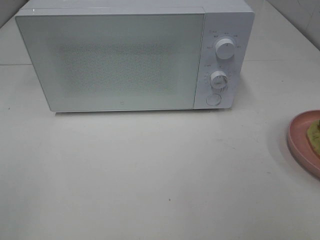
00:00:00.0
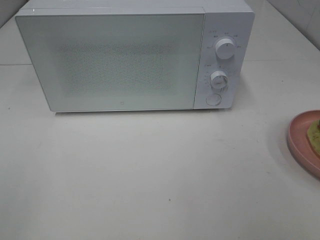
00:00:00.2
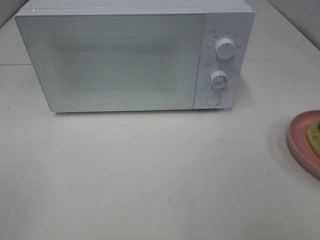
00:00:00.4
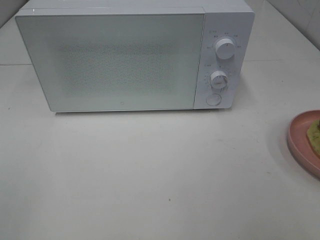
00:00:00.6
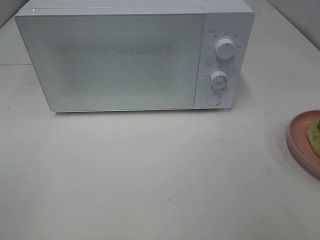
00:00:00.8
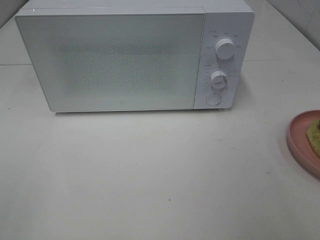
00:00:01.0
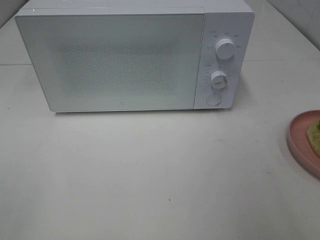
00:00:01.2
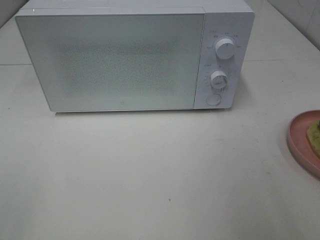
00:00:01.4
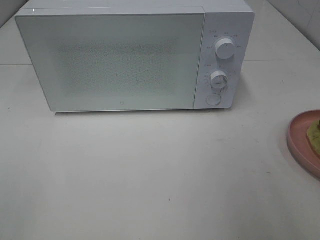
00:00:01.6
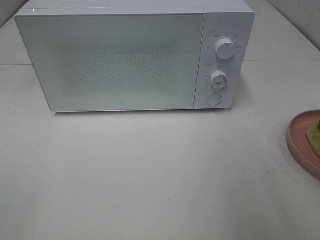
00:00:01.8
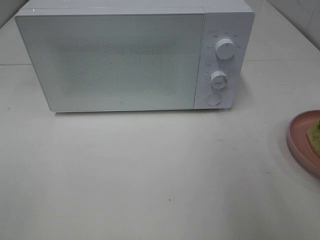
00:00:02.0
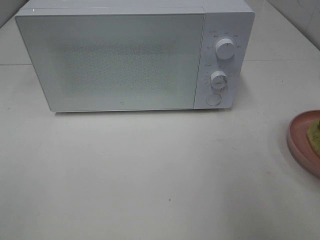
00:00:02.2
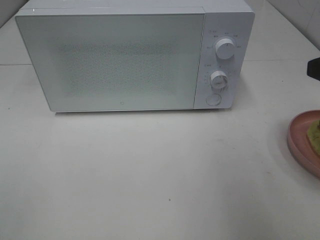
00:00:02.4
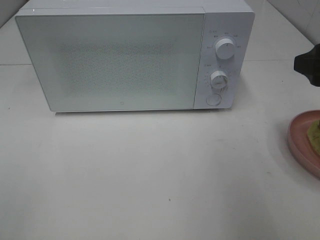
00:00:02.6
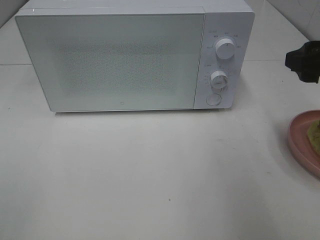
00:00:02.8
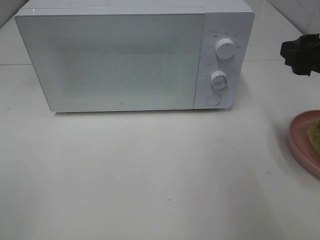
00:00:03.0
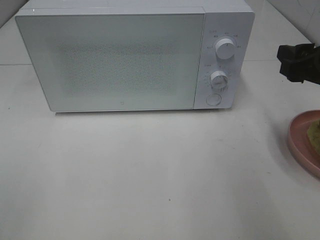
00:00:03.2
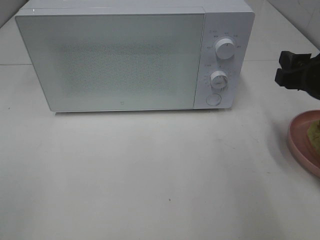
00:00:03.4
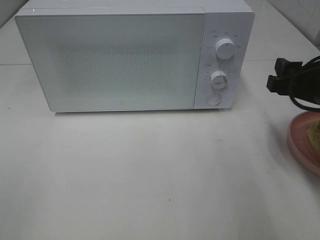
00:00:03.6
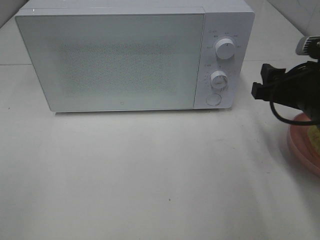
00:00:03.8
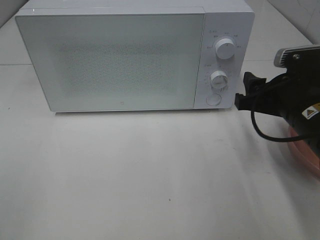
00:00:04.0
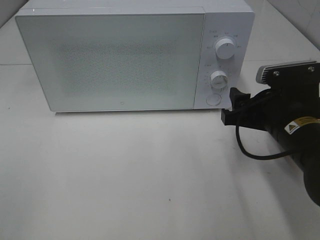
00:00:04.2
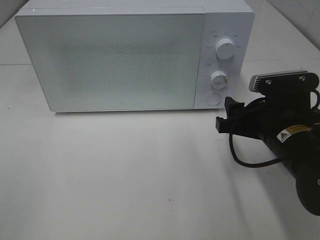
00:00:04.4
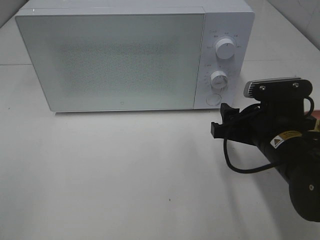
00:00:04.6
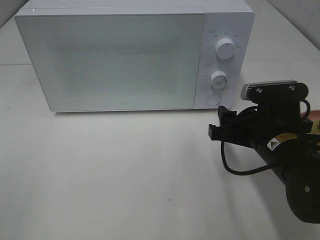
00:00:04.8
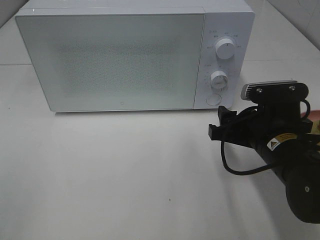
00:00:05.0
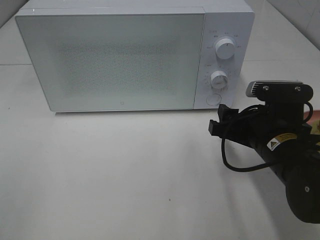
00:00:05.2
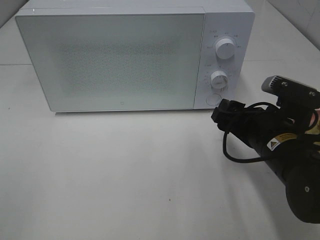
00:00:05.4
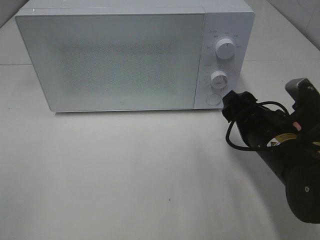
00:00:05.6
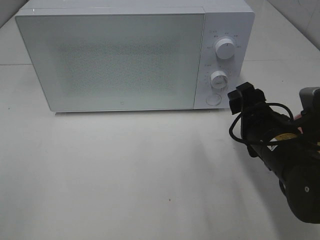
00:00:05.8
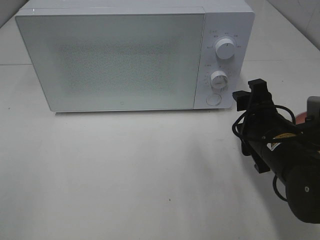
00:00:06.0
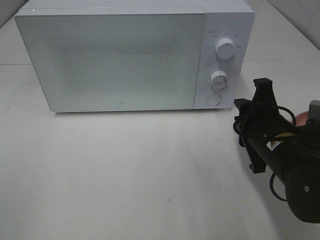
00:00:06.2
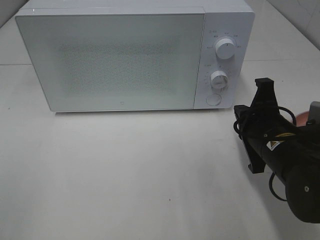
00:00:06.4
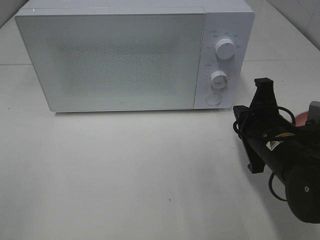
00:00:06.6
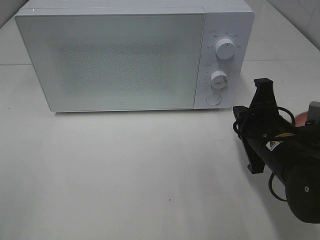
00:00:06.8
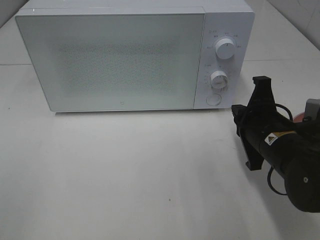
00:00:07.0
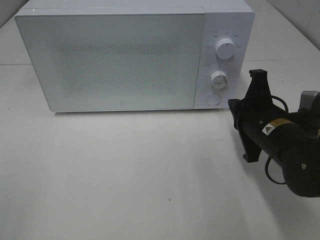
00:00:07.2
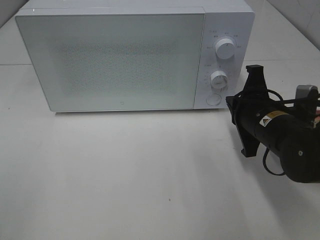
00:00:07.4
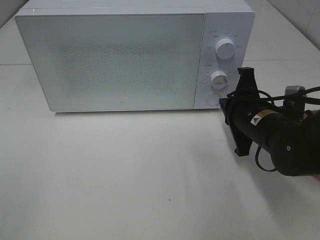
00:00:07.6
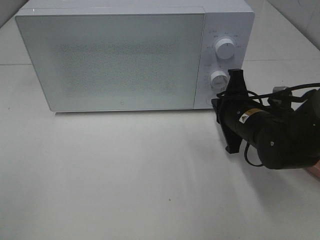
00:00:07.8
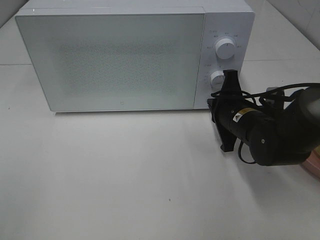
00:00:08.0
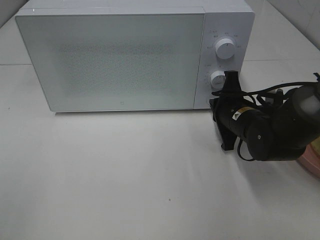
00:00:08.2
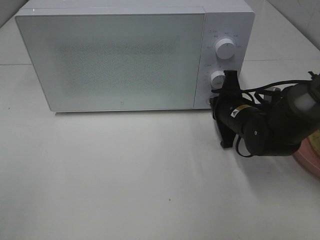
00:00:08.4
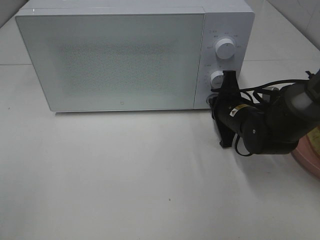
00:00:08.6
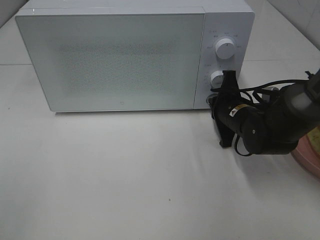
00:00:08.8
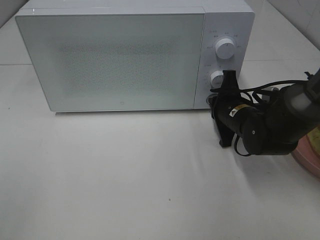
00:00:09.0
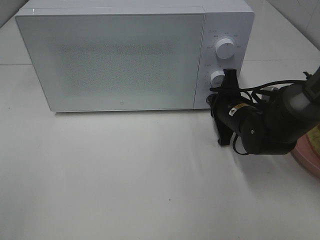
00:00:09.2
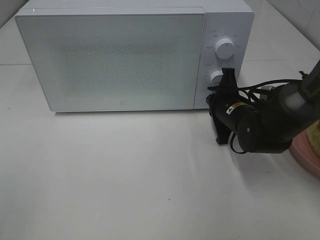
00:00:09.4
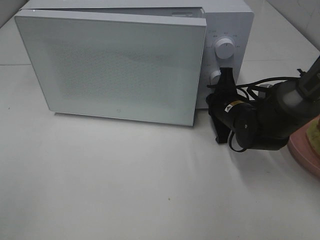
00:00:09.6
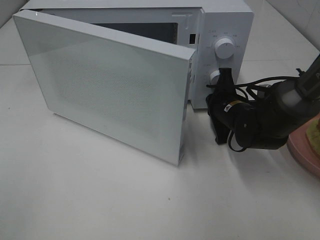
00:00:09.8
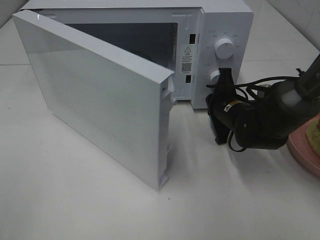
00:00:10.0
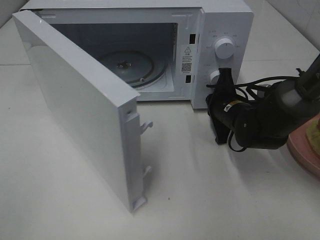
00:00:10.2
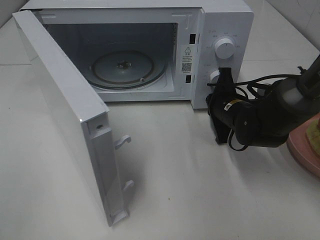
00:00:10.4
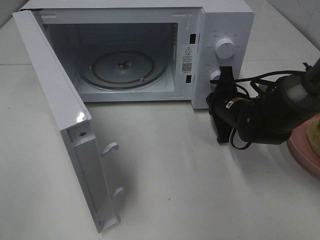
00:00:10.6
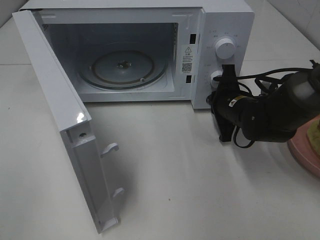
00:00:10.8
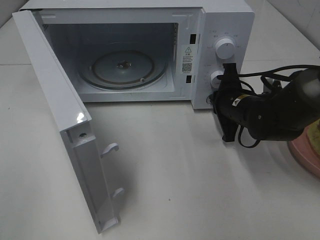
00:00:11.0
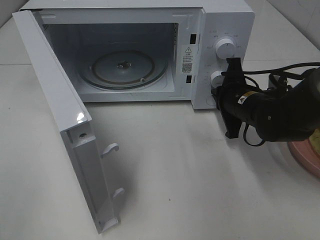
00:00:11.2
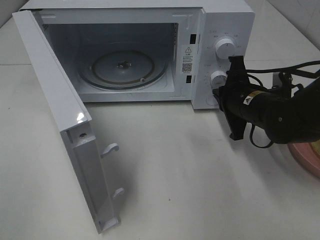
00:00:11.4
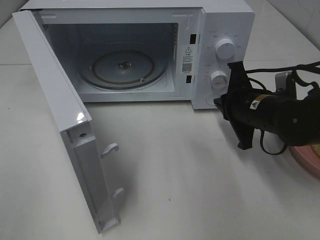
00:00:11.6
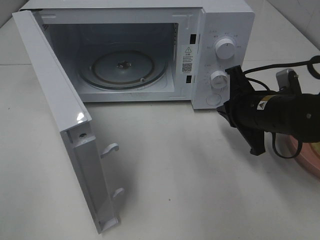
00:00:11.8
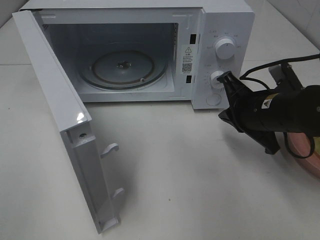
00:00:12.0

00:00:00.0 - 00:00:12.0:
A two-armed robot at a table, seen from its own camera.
Task of the whole recording: Heat Sandwich.
Step, 00:00:00.0 - 00:00:11.6: Right hand: press the switch.
00:00:01.6 - 00:00:03.0: The right gripper heads forward, covering about 15 cm.
00:00:03.0 - 00:00:04.4: The right gripper heads downward and to the left, covering about 15 cm.
00:00:06.0 - 00:00:07.6: The right gripper is displaced forward by some 5 cm, and closes its fingers.
00:00:07.6 - 00:00:09.0: The right gripper goes about 5 cm forward.
00:00:10.4 - 00:00:12.0: The right gripper shifts some 10 cm backward and upward.

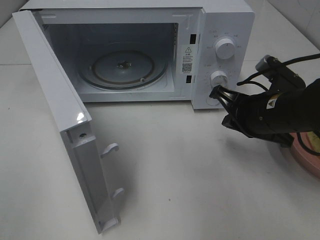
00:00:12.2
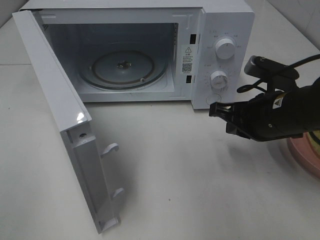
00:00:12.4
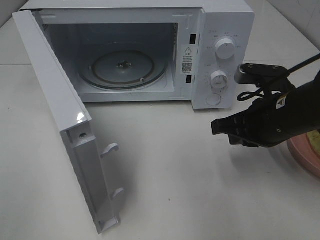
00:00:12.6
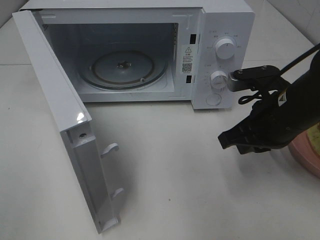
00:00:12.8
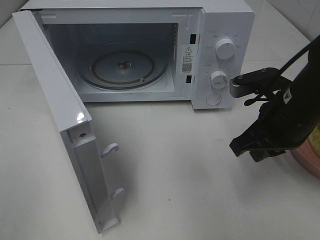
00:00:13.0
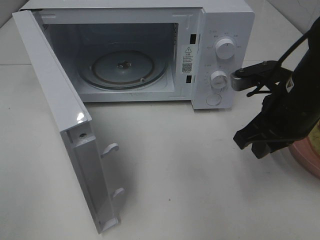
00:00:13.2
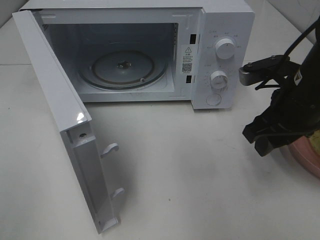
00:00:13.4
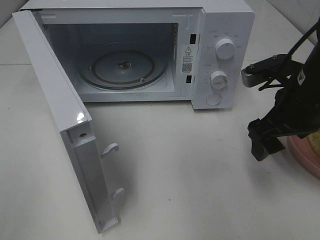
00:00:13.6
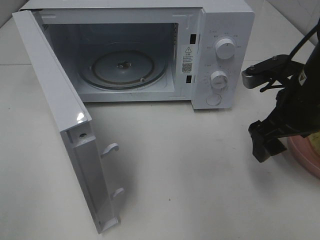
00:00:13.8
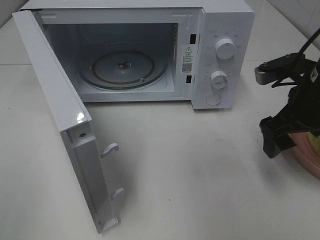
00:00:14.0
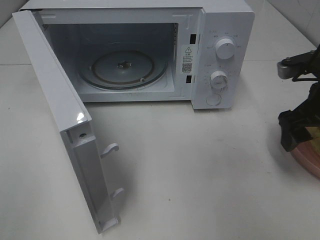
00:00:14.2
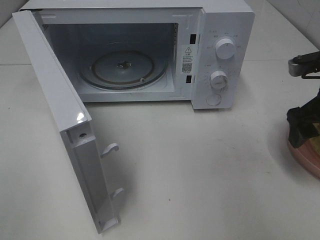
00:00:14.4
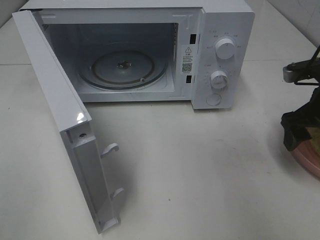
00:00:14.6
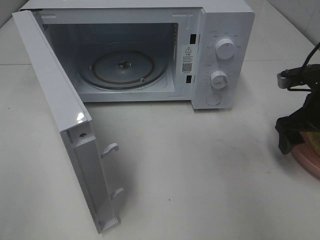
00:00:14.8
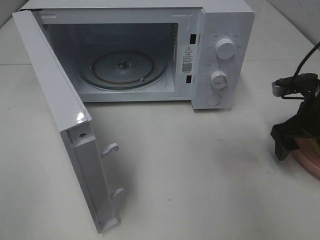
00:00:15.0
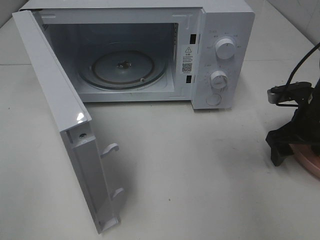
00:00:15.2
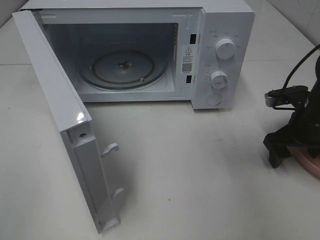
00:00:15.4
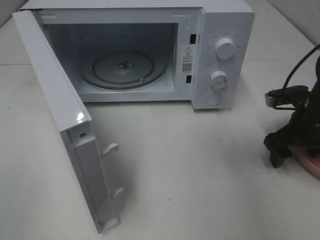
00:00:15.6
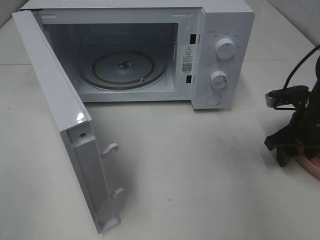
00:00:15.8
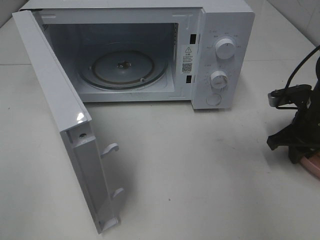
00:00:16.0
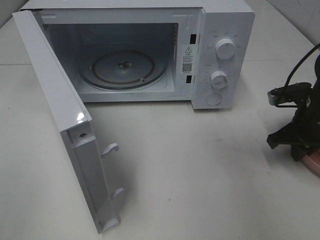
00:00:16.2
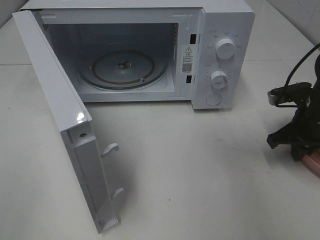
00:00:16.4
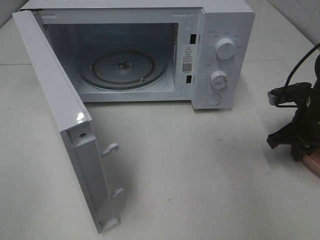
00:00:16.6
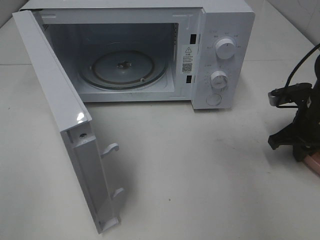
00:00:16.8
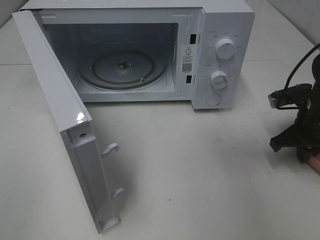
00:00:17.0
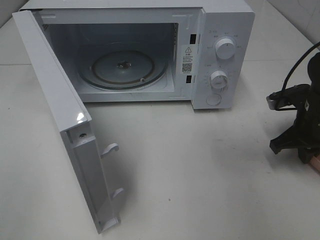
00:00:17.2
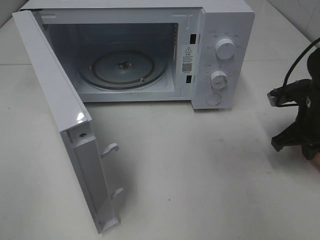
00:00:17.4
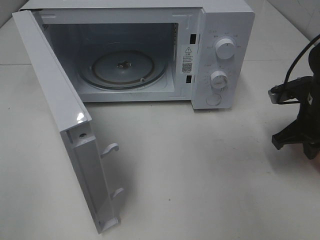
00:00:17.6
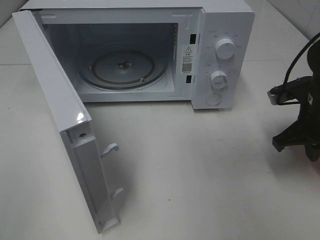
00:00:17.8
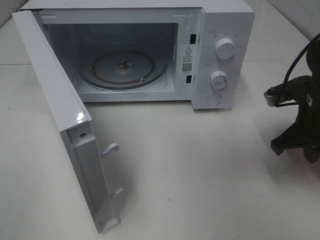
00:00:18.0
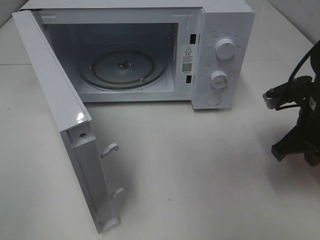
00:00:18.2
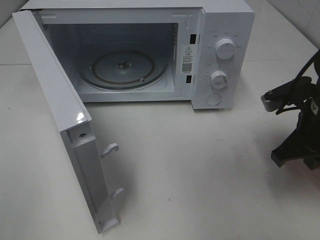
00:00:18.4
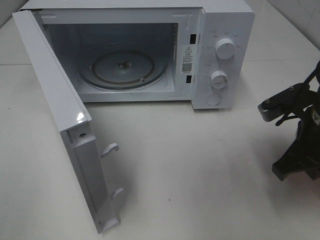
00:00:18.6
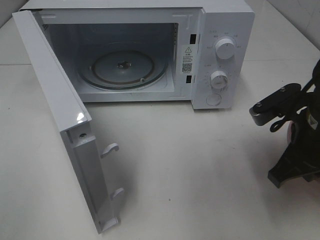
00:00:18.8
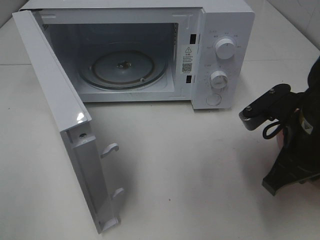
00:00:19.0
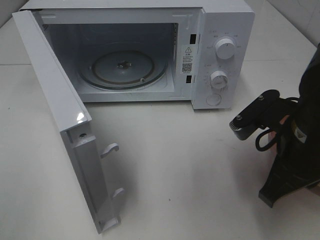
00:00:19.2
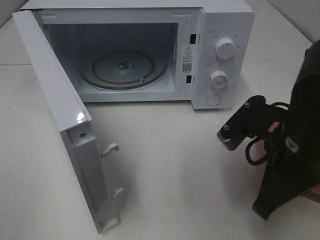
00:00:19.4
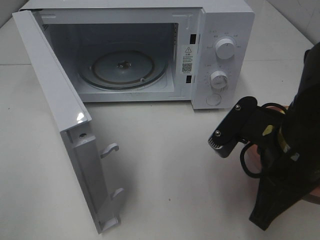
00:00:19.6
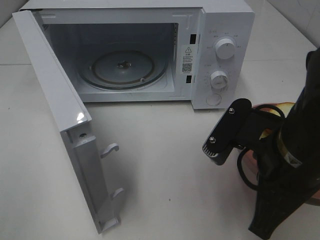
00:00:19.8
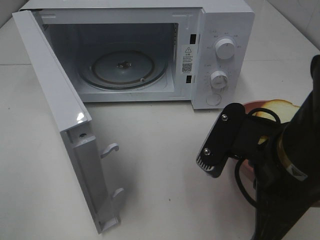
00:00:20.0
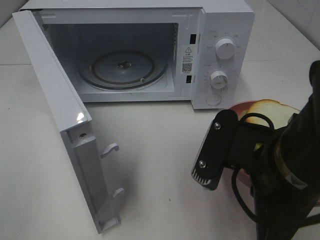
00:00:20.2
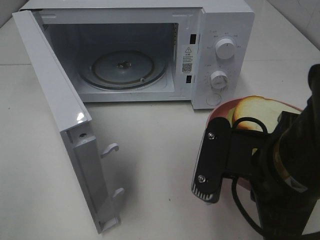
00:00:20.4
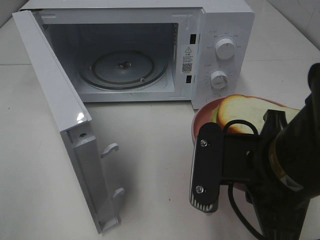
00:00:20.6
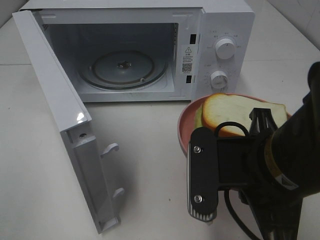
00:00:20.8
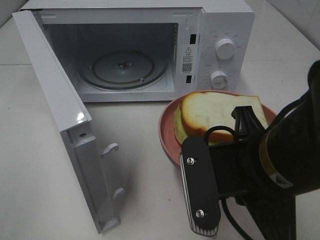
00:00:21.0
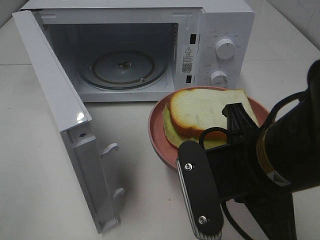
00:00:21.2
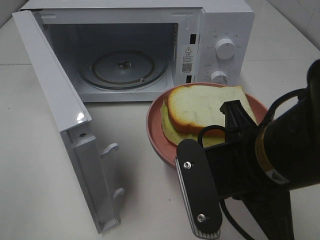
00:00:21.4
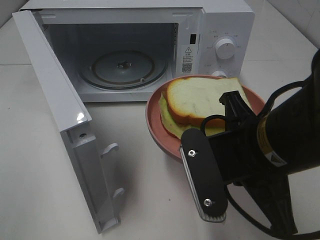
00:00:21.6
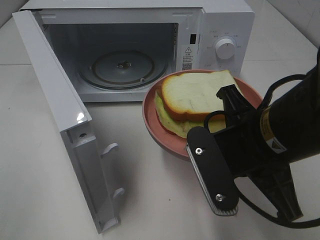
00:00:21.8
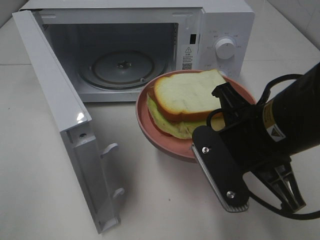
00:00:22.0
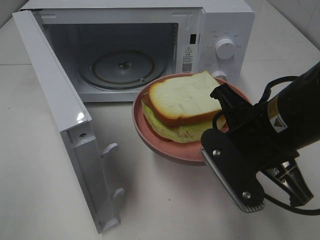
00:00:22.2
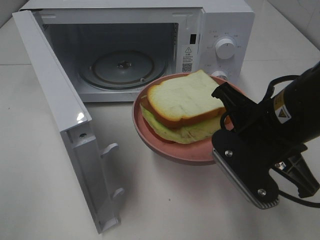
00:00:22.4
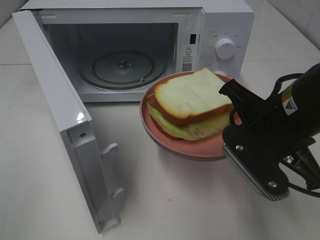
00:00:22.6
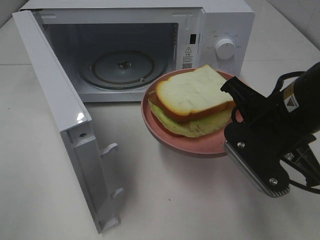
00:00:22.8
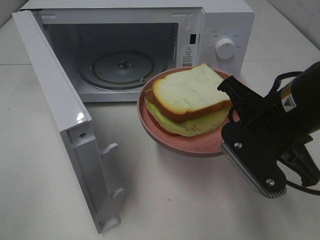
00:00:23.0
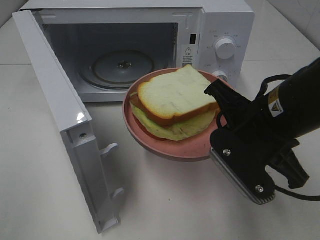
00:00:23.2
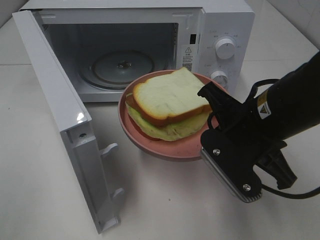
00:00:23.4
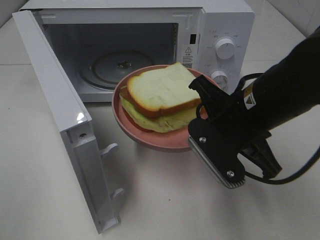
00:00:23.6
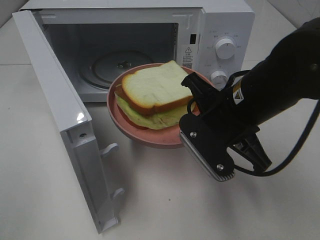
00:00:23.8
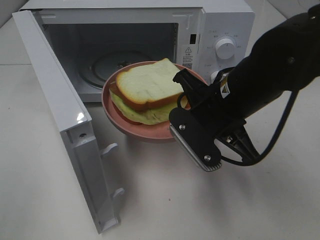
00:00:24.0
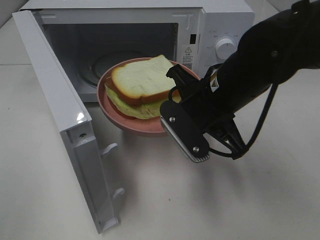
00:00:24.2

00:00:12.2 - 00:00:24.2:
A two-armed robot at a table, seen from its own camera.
Task of the whole recording: Heat Sandwich.
Step, 00:00:12.2 - 00:00:16.2: Right hand: grab the plate with the sandwich.
00:00:12.2 - 00:00:13.8: The right gripper travels upward by approximately 5 cm, and opens.
00:00:13.8 - 00:00:15.2: The right gripper moves downward and to the right, about 10 cm.
00:00:15.2 - 00:00:16.6: The right gripper closes.
00:00:16.6 - 00:00:18.2: The right gripper is displaced backward and upward by some 5 cm.
00:00:18.2 - 00:00:19.8: The right gripper heads backward and to the left, covering about 15 cm.
00:00:21.2 - 00:00:22.6: The right gripper heads forward, covering about 5 cm.
00:00:22.6 - 00:00:24.2: The right gripper moves to the left and forward, approximately 10 cm.
